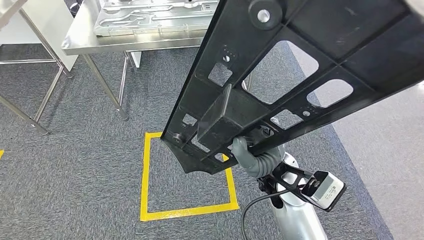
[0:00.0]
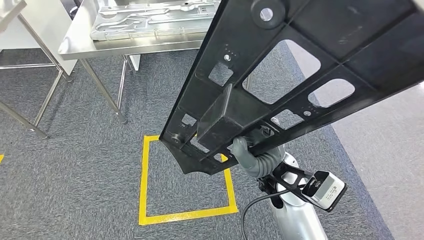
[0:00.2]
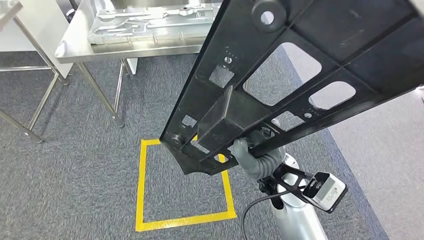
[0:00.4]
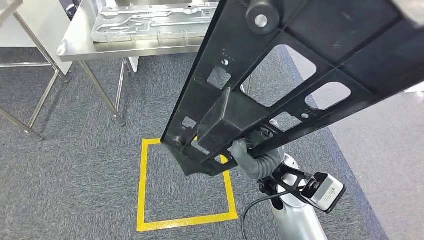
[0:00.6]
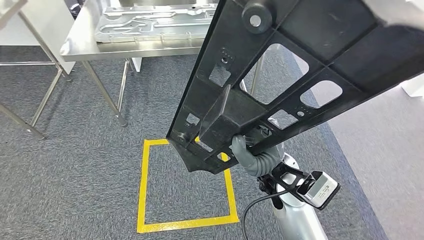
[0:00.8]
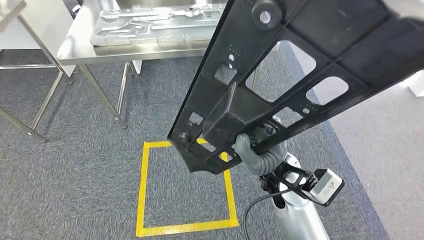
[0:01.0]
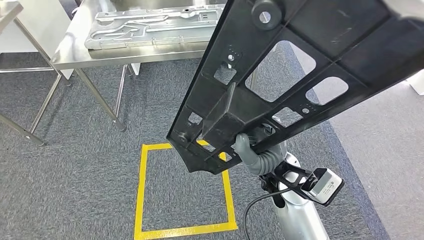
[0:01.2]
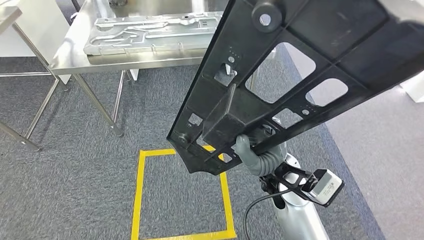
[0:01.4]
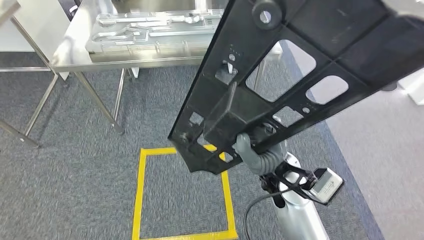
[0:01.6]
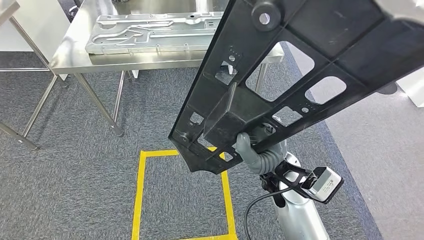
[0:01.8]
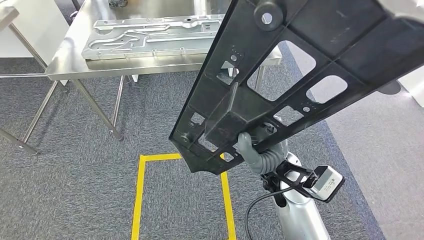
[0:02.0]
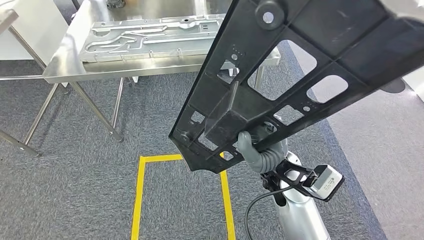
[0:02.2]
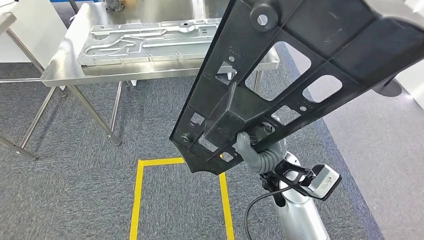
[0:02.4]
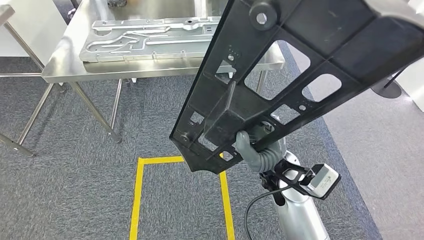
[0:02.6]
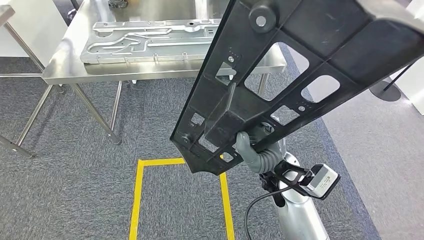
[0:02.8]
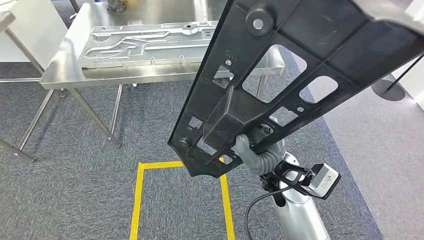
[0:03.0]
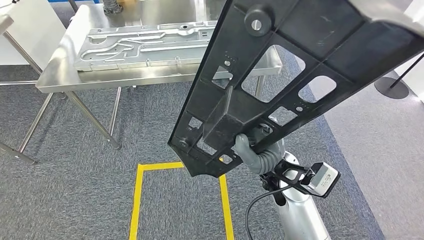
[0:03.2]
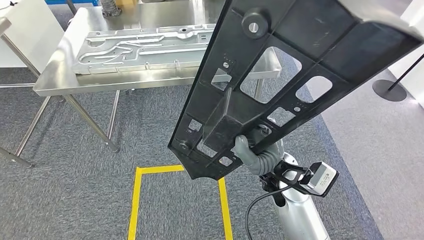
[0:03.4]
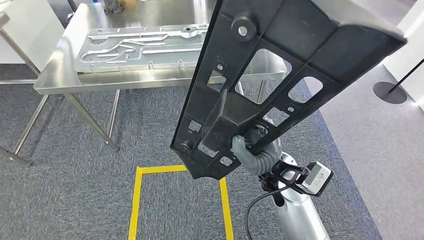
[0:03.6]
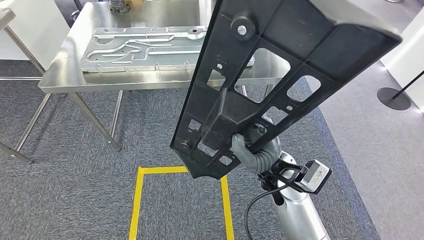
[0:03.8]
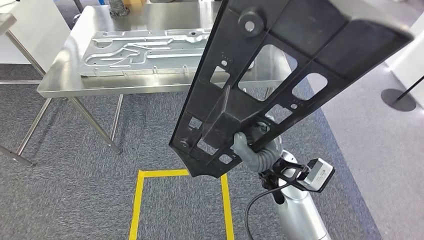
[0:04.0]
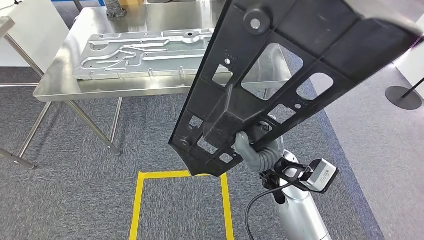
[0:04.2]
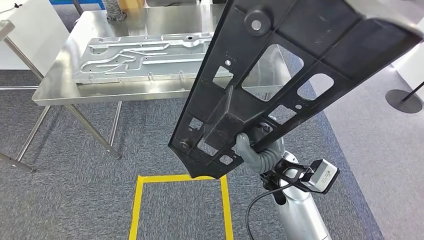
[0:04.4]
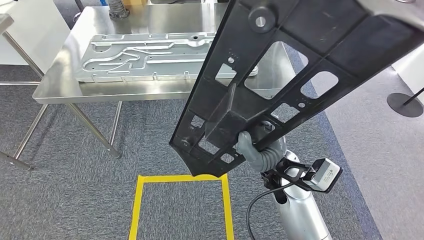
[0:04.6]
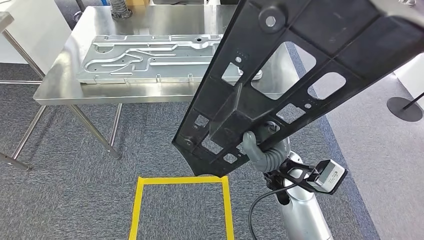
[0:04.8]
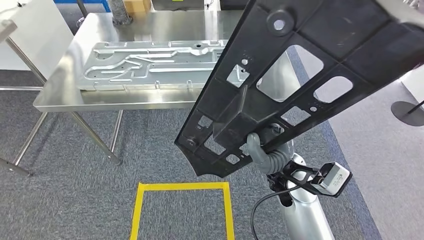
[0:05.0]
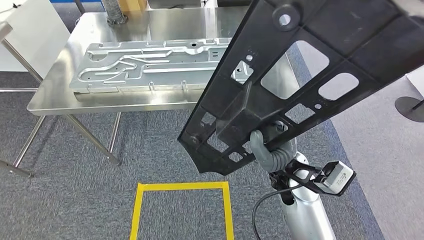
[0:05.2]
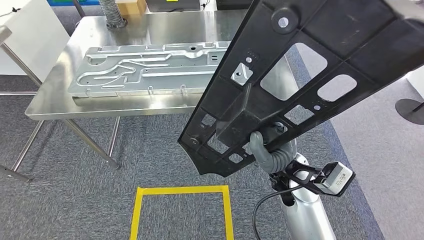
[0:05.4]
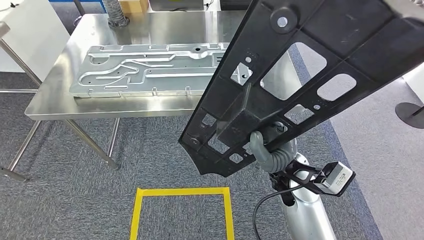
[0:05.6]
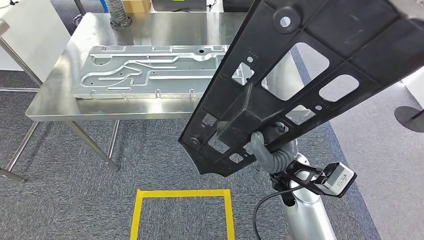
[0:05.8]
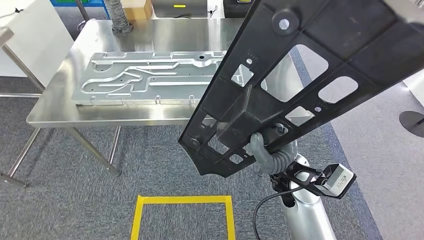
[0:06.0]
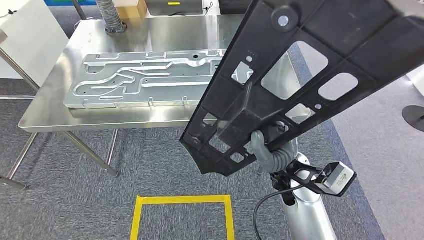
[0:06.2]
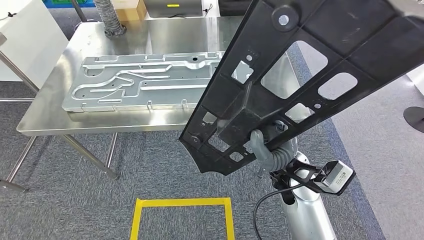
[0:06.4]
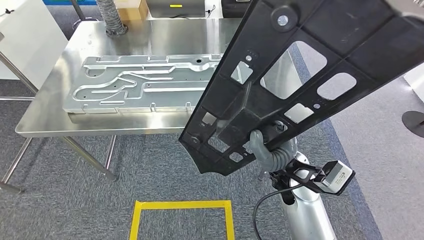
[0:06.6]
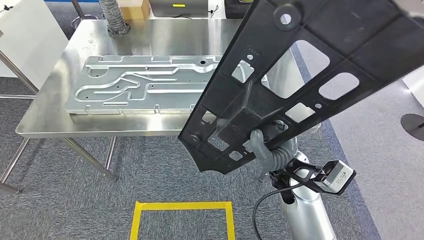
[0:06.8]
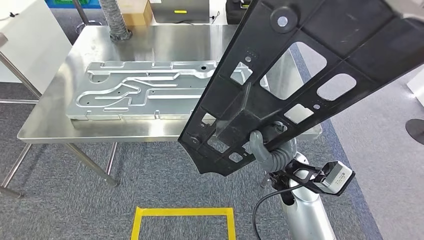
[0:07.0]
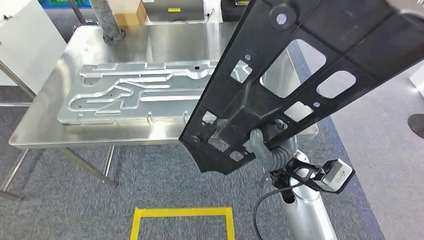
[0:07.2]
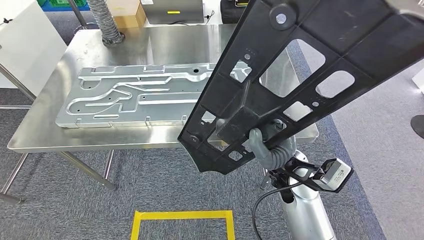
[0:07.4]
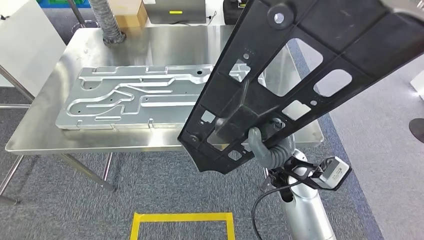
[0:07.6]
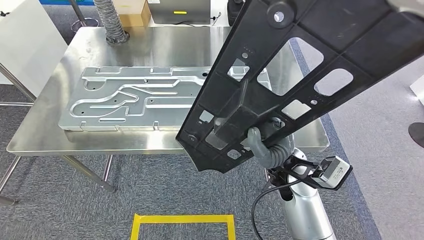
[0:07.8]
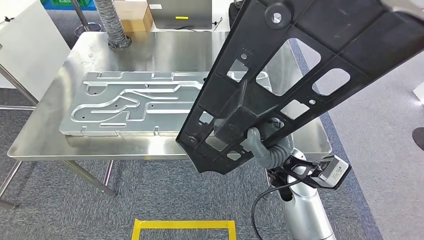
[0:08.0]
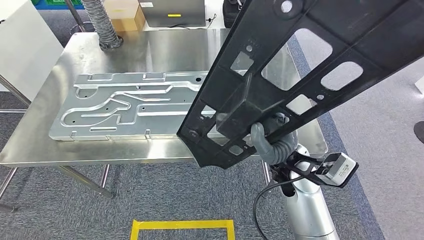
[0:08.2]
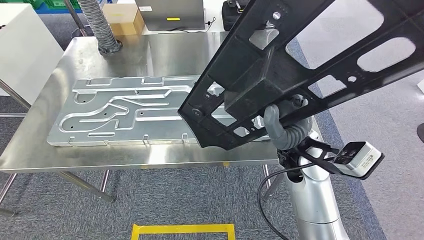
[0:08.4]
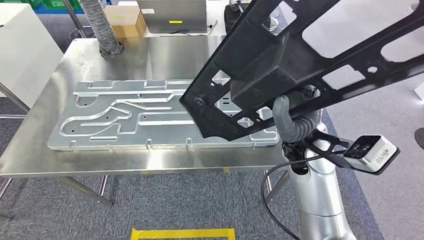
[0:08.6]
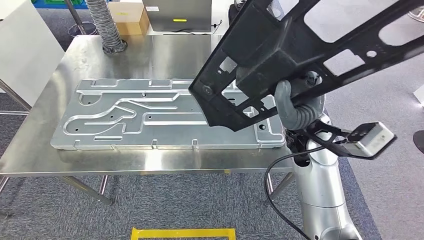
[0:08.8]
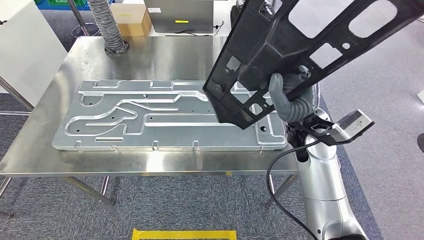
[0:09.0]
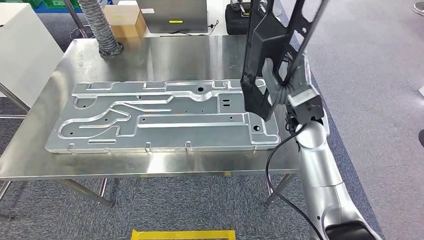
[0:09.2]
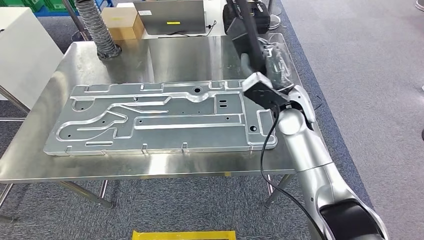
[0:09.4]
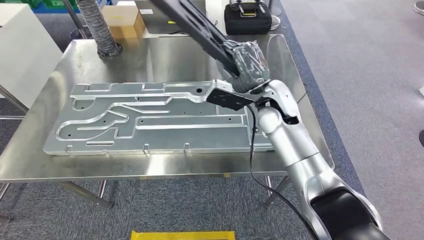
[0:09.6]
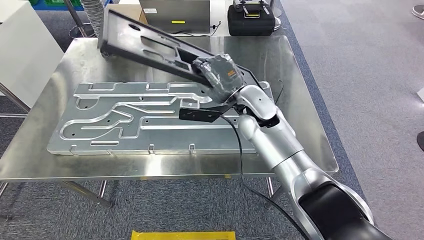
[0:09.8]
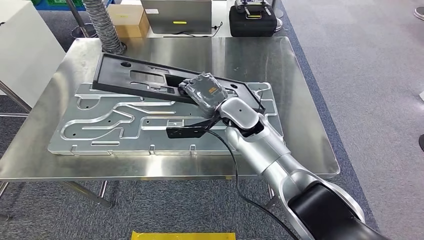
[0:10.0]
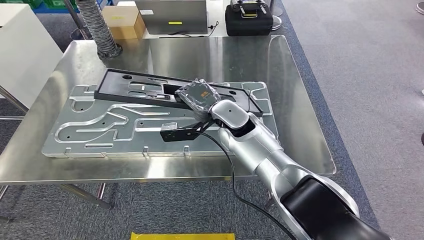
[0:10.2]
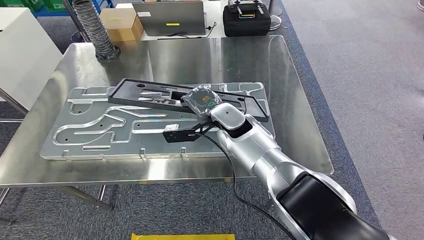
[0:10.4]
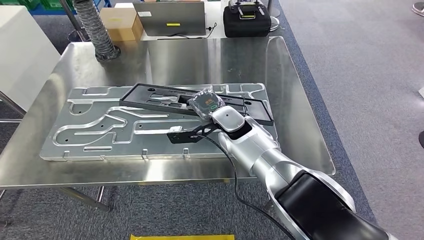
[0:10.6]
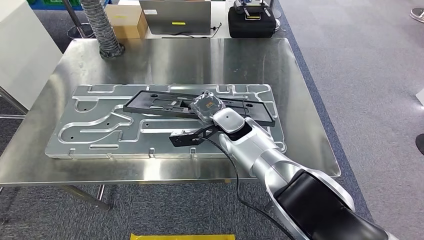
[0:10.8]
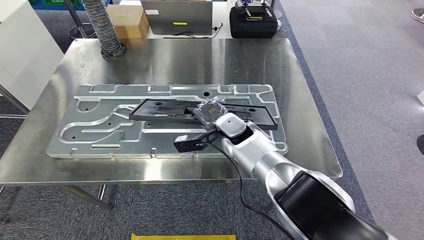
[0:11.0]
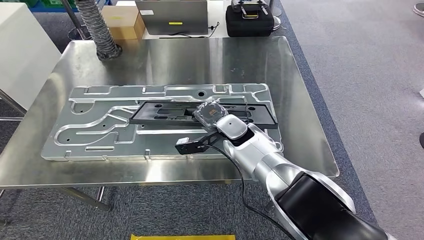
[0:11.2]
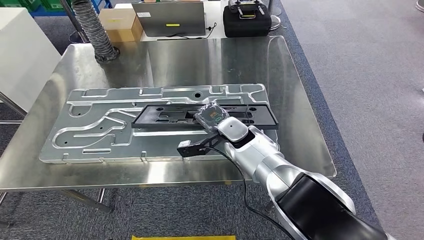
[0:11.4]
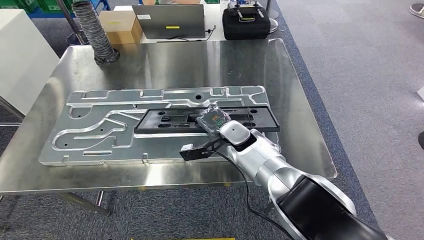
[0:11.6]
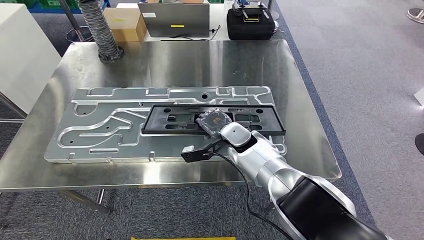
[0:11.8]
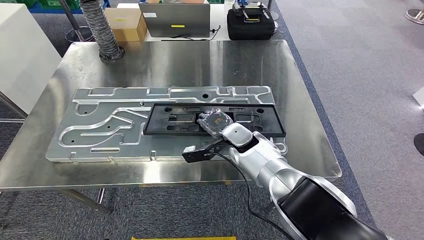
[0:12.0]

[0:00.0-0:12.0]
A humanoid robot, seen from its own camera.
Step, 0:00.0 to 0:06.0: Move the large material to the workbench.

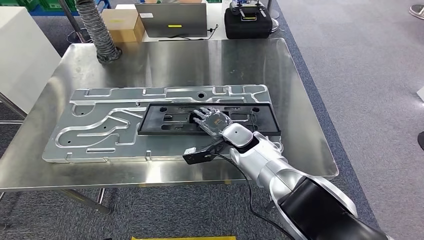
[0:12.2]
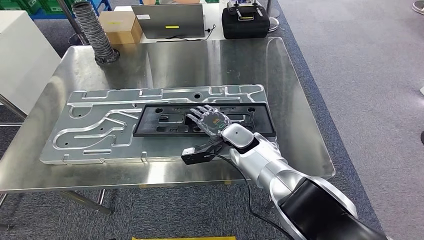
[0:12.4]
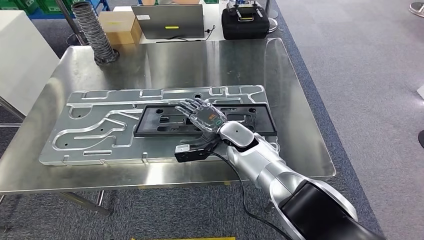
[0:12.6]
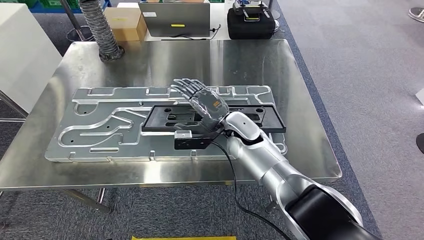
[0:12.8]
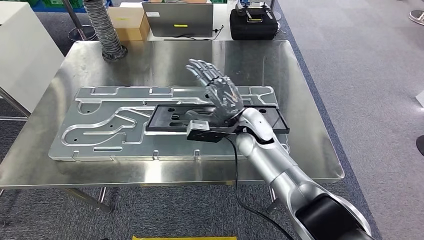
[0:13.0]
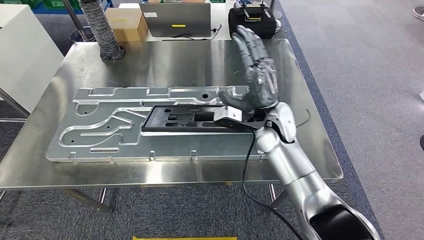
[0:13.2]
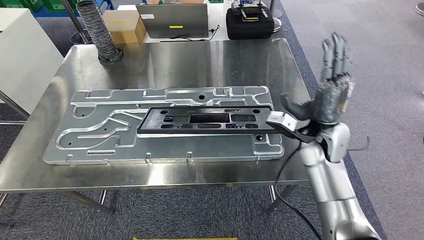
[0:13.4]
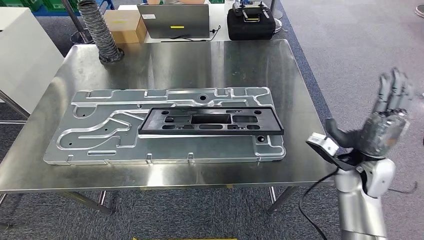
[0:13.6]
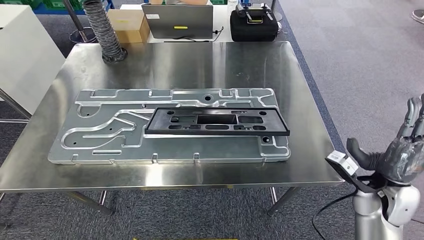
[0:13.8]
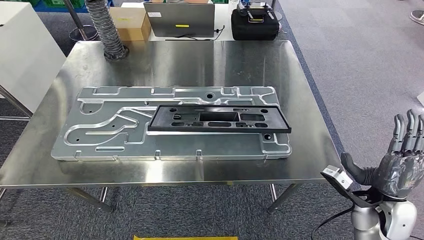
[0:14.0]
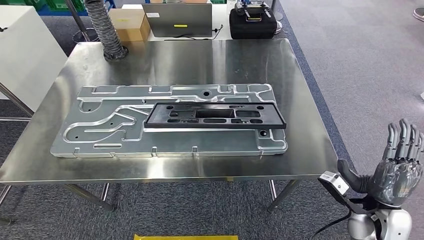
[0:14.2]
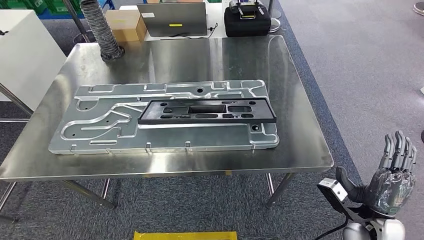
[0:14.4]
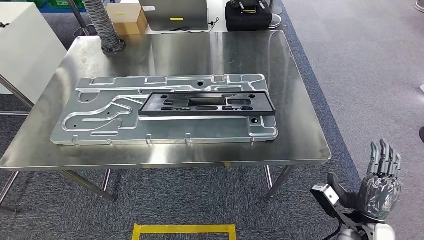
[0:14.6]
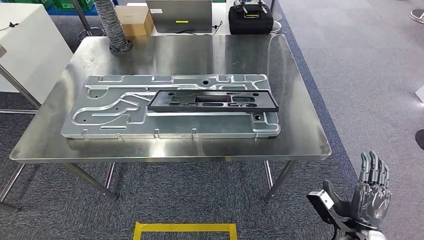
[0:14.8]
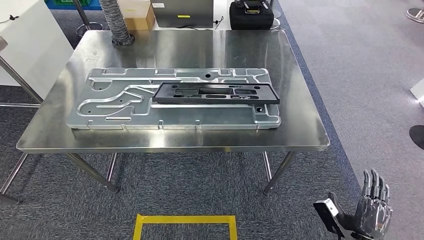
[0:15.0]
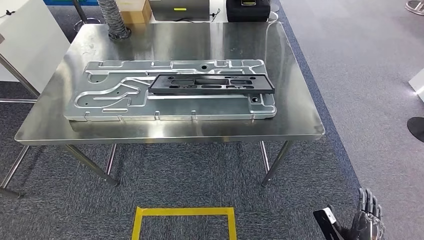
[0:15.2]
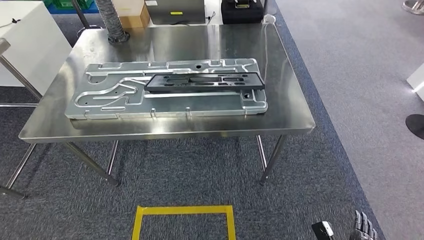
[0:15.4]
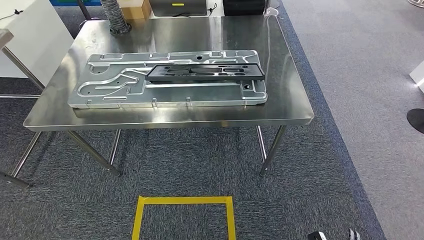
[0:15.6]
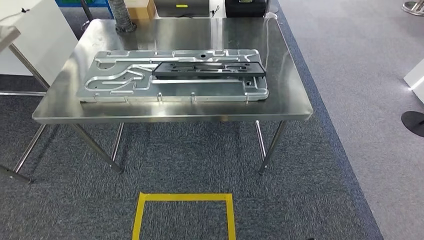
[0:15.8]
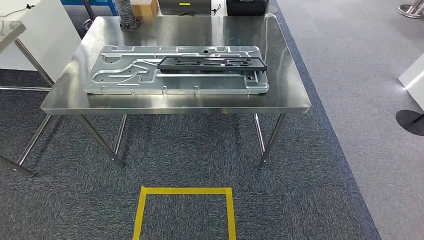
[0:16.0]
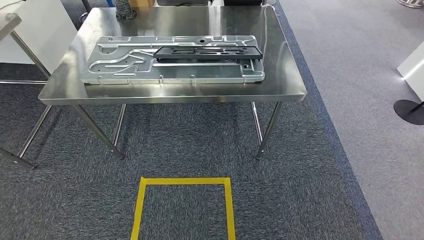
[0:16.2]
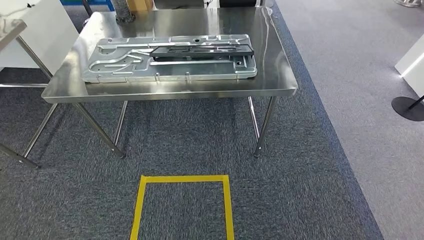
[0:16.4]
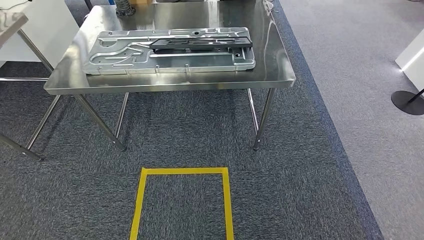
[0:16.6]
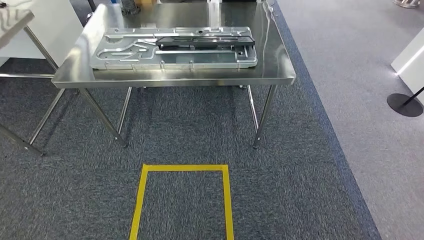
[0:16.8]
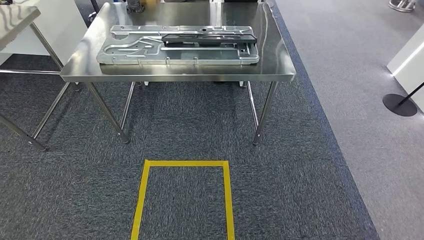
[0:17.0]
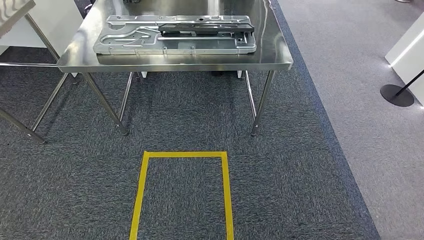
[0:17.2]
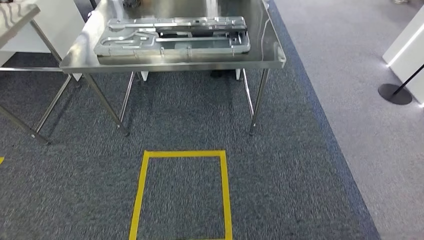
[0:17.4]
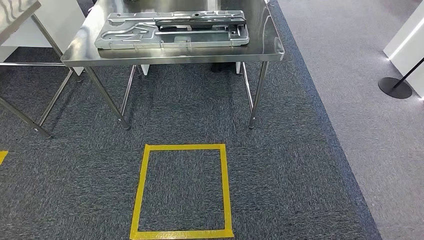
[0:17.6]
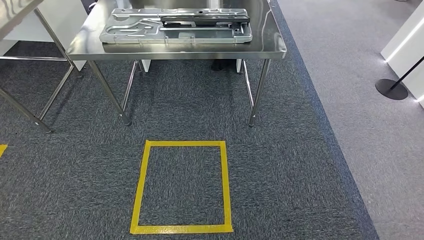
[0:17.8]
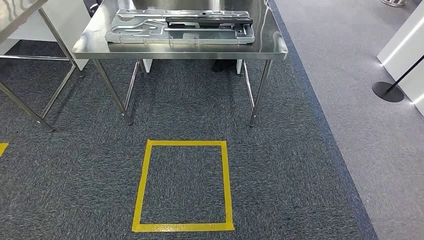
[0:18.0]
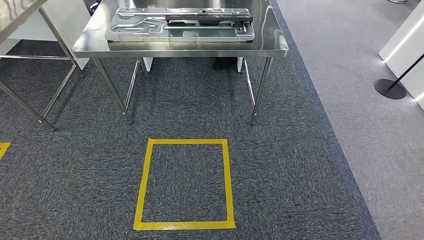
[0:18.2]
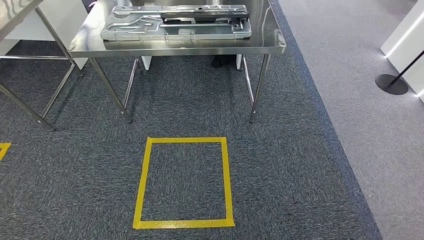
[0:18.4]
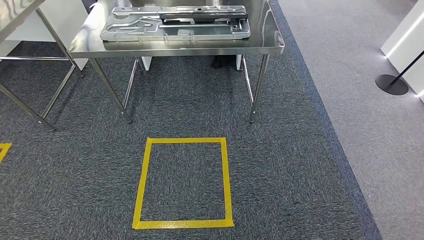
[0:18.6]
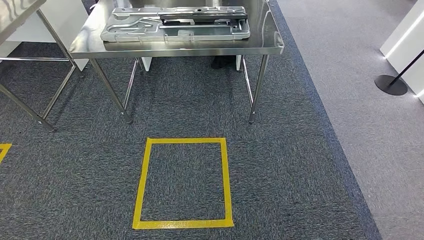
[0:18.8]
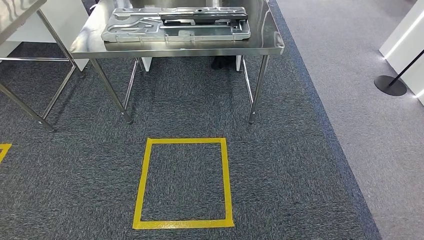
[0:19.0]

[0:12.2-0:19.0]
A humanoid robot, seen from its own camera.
Step, 0:14.6 to 0:19.0: Move to the initial position of the shelf.
0:17.6 to 0:19.0: The hands stay close to where they were, moving slightly.
